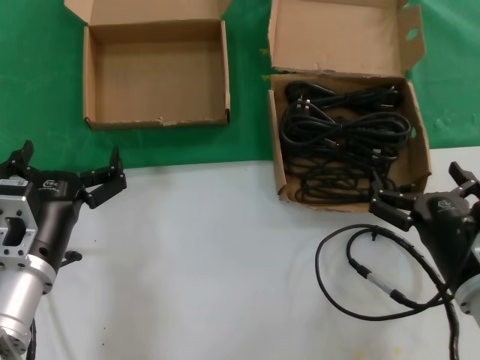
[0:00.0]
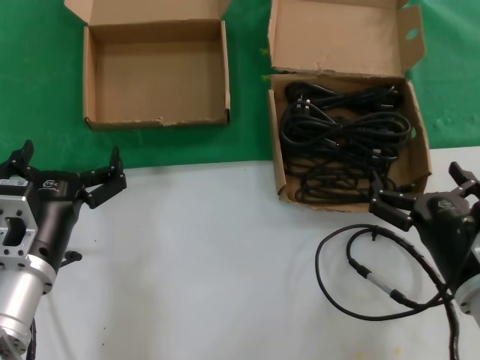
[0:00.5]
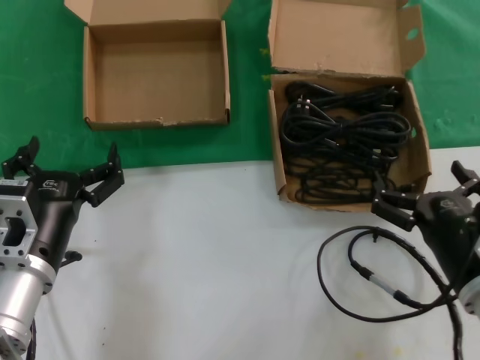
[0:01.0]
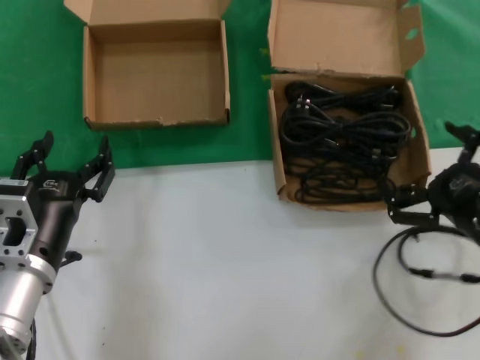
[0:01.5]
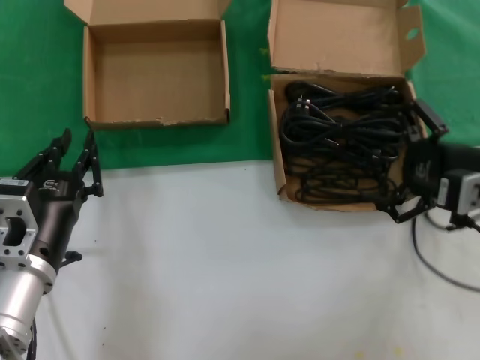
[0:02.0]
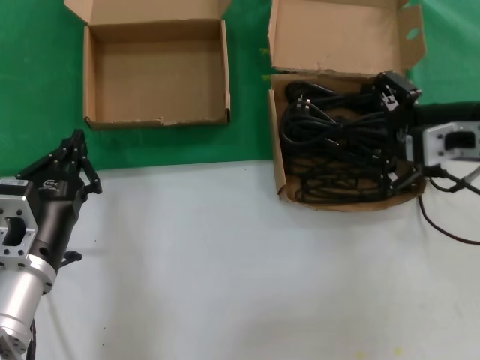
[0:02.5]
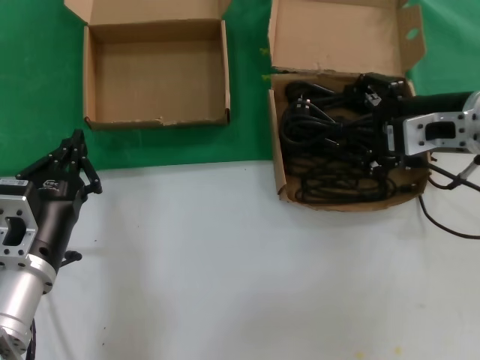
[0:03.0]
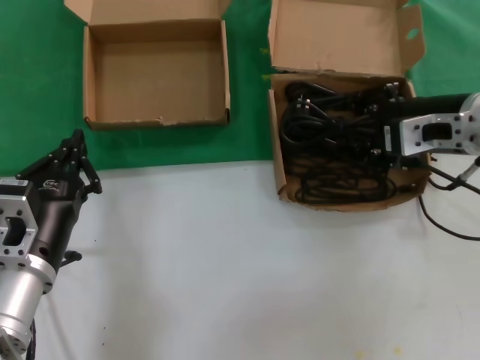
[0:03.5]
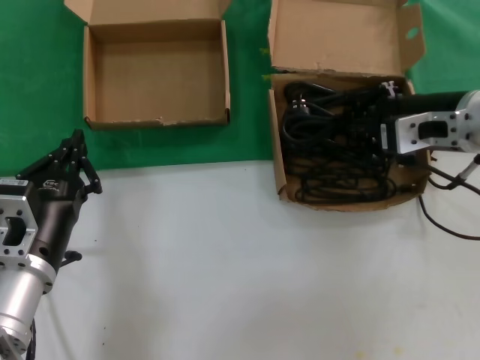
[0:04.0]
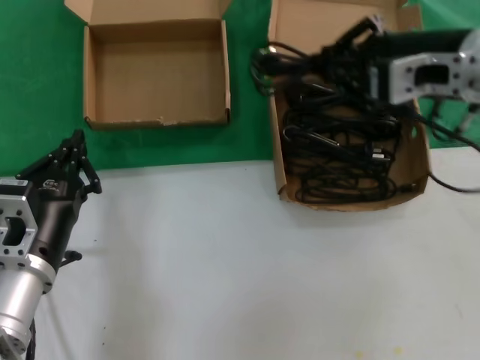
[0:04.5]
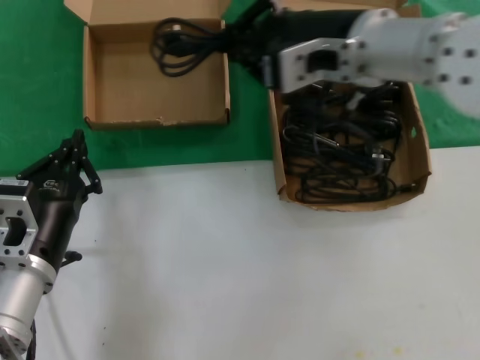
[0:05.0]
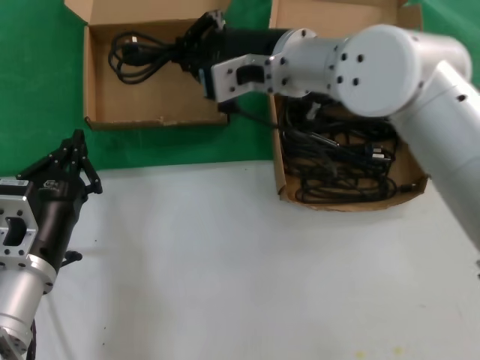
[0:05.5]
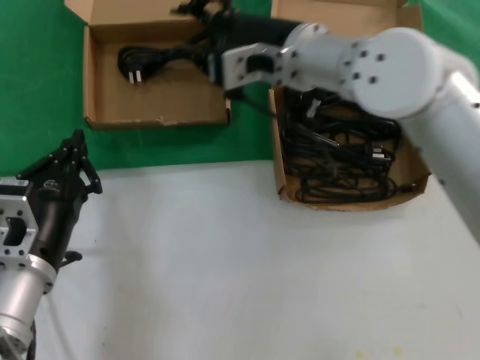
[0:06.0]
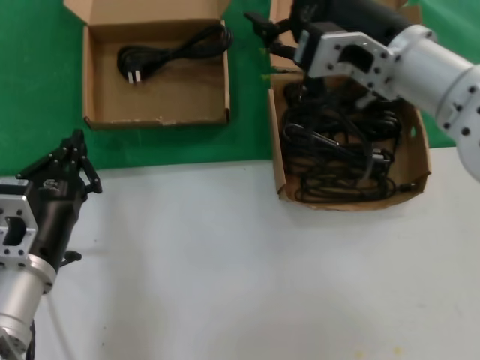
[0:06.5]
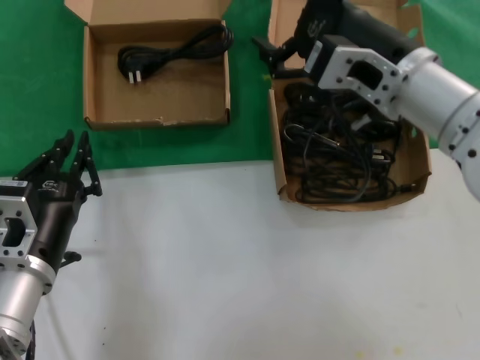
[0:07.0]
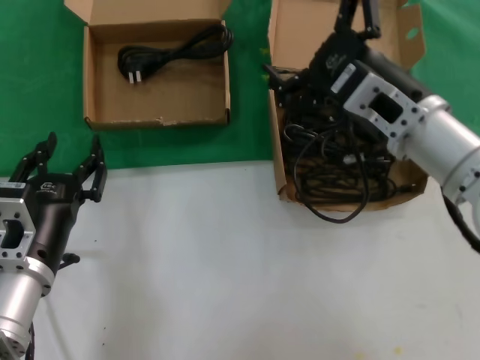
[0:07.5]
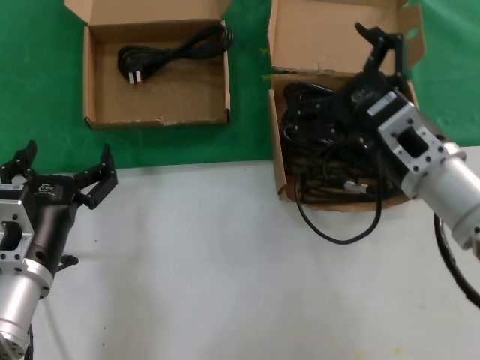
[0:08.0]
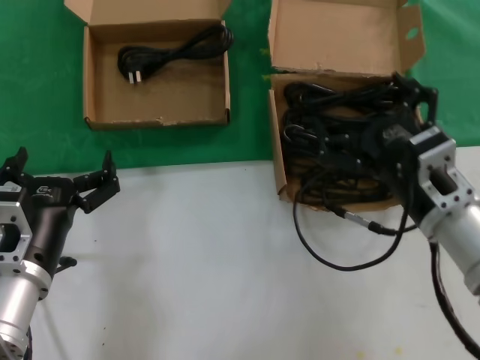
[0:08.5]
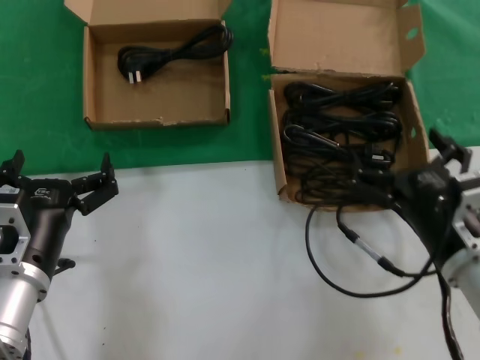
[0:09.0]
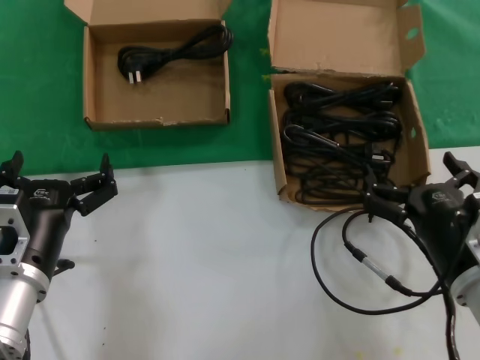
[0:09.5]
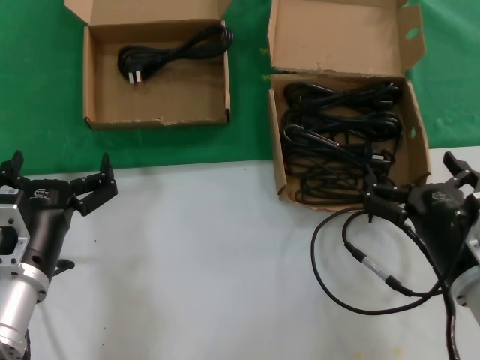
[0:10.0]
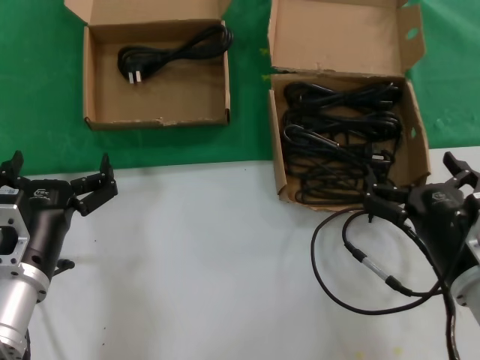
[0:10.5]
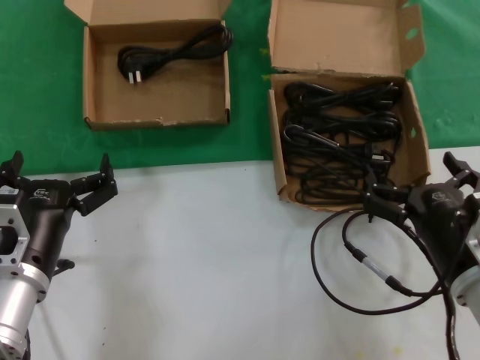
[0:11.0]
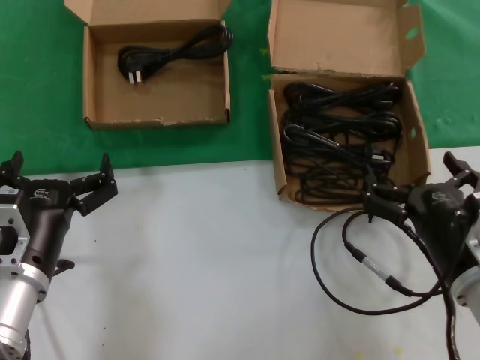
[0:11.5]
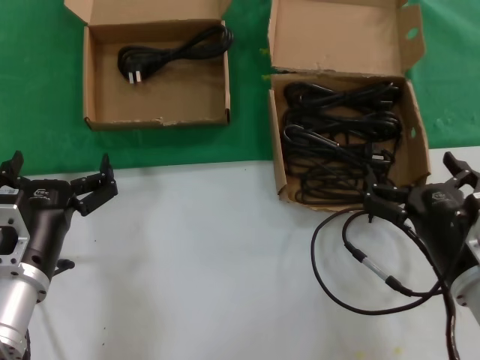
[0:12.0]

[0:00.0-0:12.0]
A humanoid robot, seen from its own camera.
Task of the whole recording: take the parts from the box containing them and put them into an empty box.
Step, 0:00.0 to 0:03.5: Grasp the data cable.
Step, 0:04.0 to 0:05.5: Place the data cable in the another box.
0:00.0 to 0:02.0: The right hand moves upward, forward and to the right, roughly 15 cm.
0:02.0 to 0:04.0: The right hand moves forward, to the left and upward, about 10 cm.
0:04.0 to 0:06.0: The right hand moves to the left, approximately 20 cm.
0:06.0 to 0:08.0: The right hand heads to the right, backward and downward, covering about 20 cm.
0:08.0 to 0:10.0: The right hand travels downward and backward by about 15 cm.
0:10.0 to 0:12.0: Neither hand changes place.

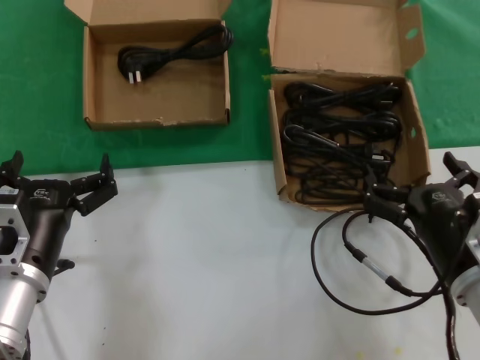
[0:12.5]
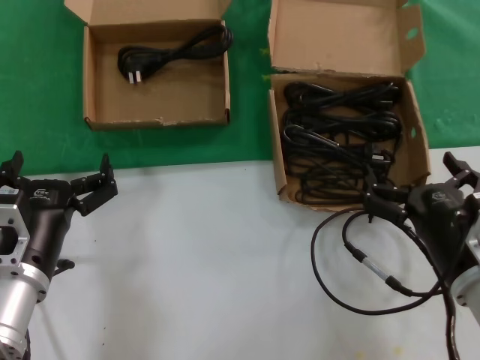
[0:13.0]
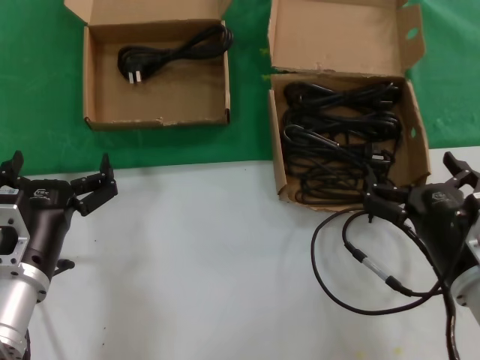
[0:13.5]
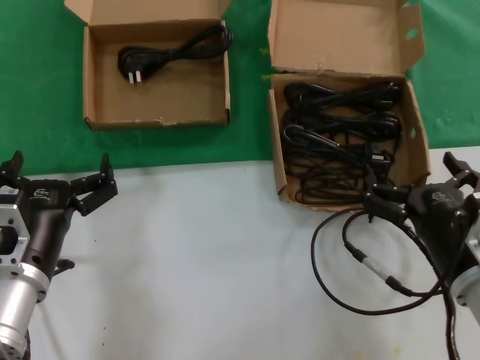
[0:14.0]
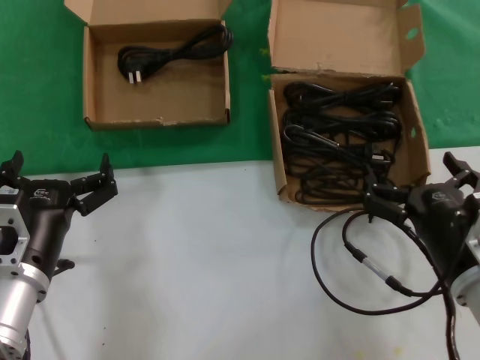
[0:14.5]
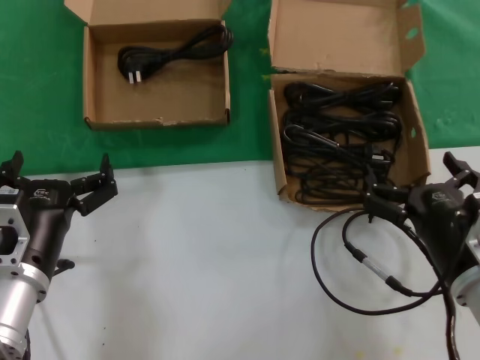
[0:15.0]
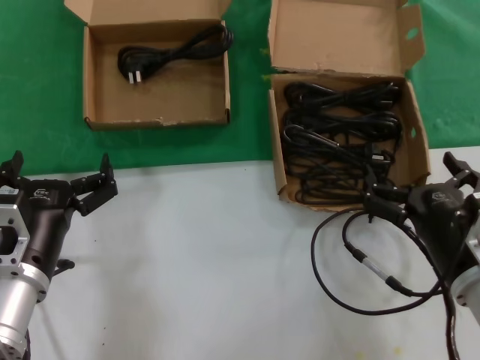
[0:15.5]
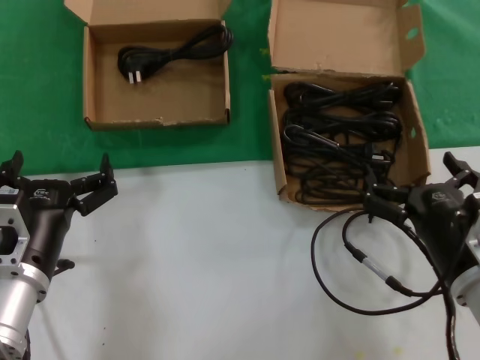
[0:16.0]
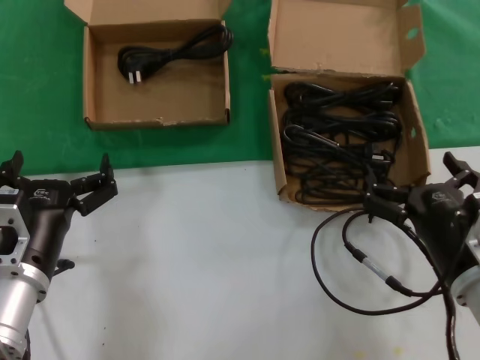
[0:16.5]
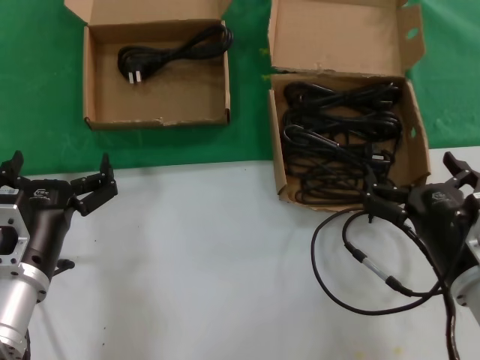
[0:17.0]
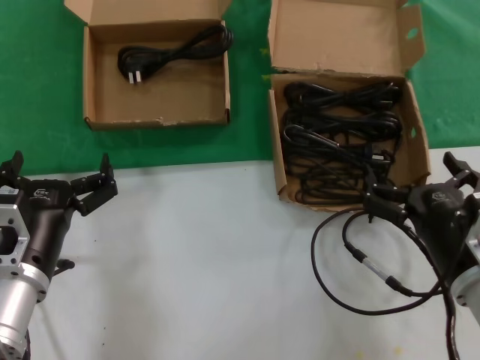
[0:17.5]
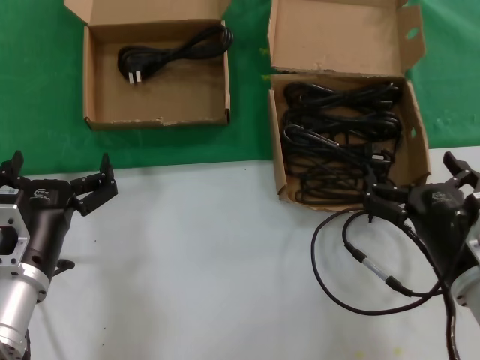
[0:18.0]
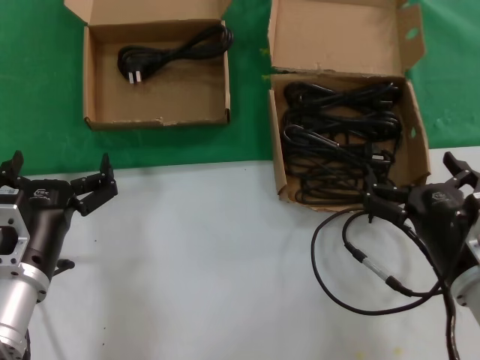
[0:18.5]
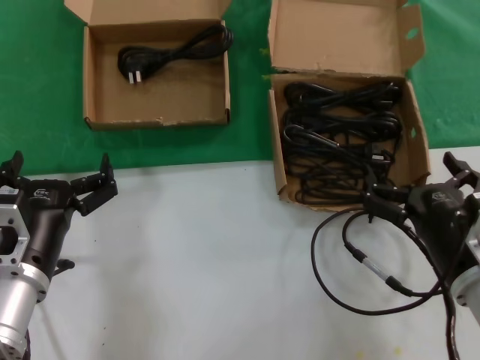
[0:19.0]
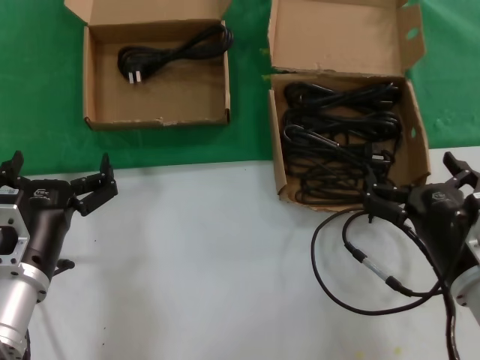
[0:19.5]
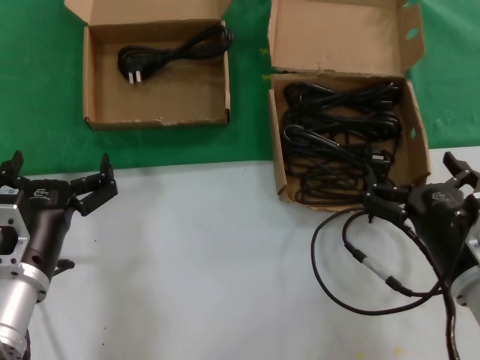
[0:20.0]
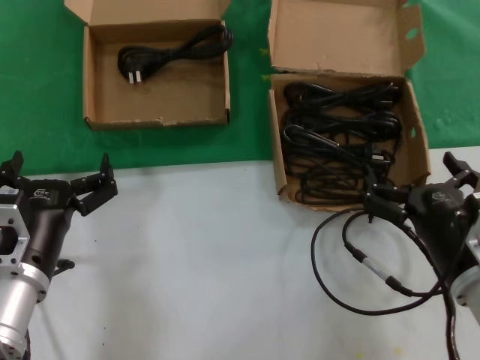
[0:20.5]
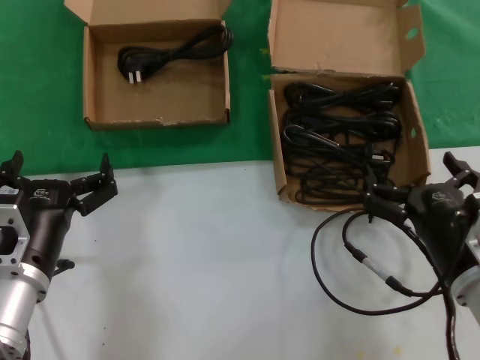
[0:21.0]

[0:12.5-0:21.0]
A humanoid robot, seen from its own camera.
Task of the whole recording: take the parts from the box containing them and put them into an empty box.
0:12.5 to 0:21.0: Neither hand changes place.

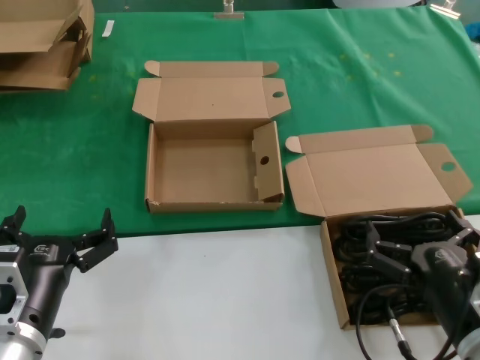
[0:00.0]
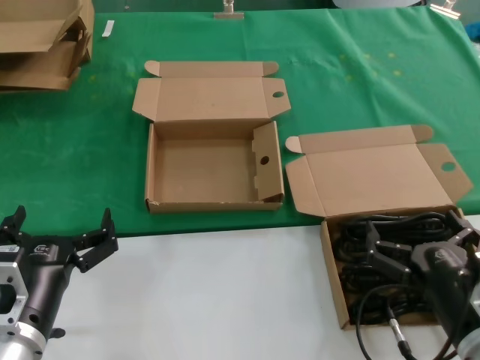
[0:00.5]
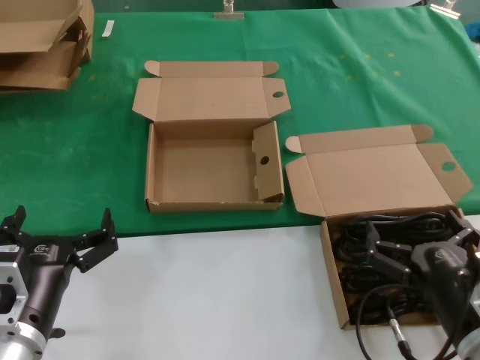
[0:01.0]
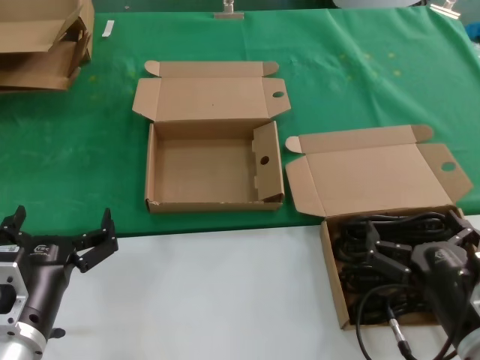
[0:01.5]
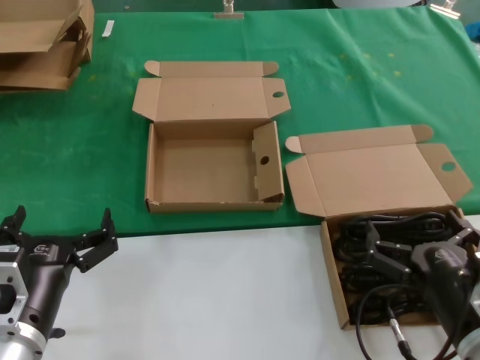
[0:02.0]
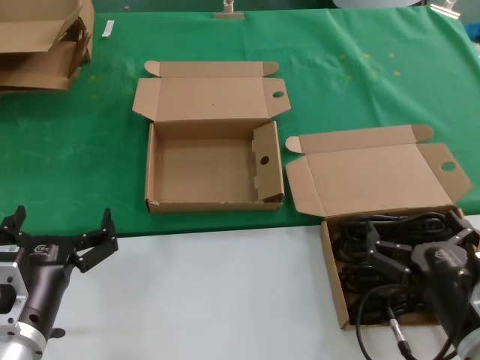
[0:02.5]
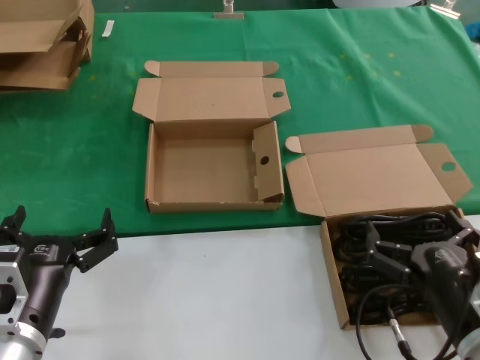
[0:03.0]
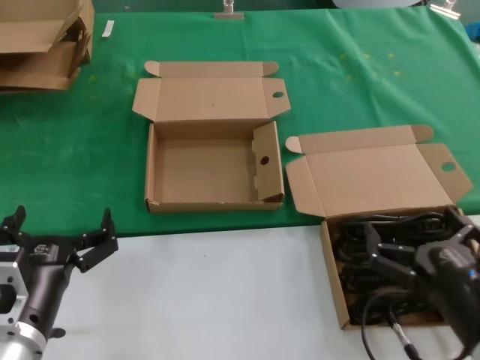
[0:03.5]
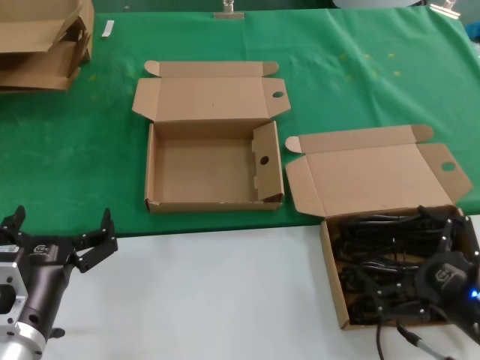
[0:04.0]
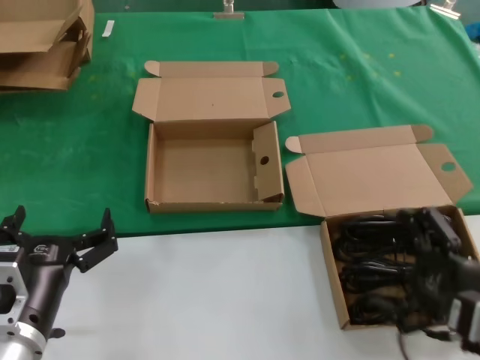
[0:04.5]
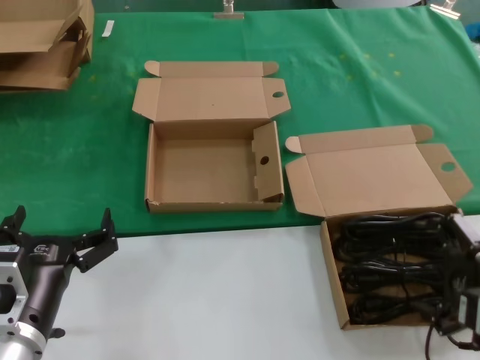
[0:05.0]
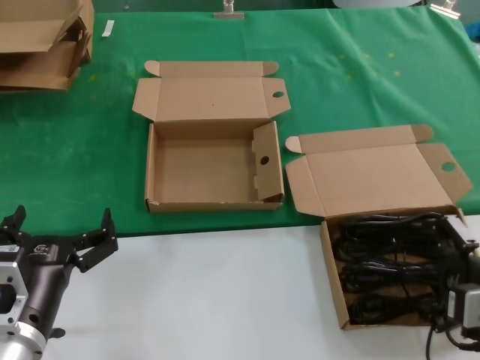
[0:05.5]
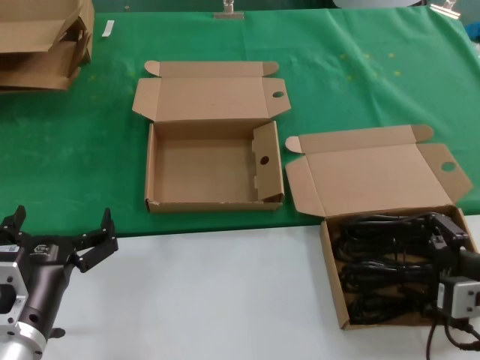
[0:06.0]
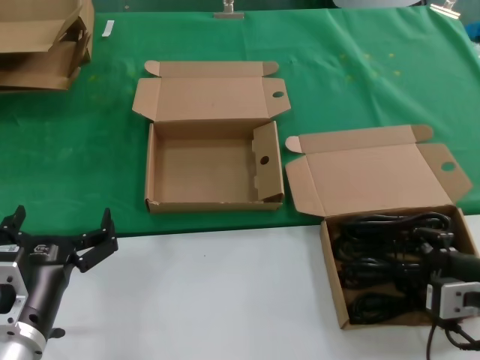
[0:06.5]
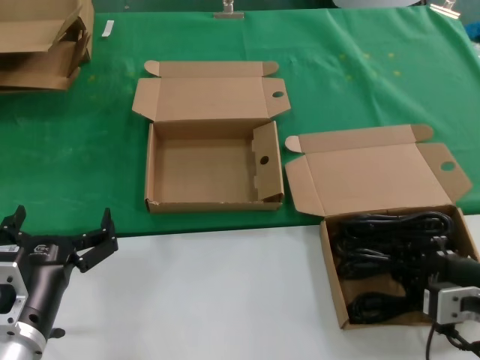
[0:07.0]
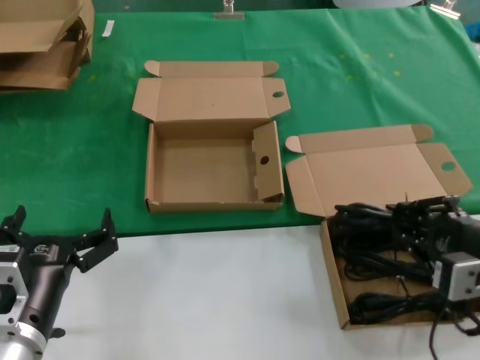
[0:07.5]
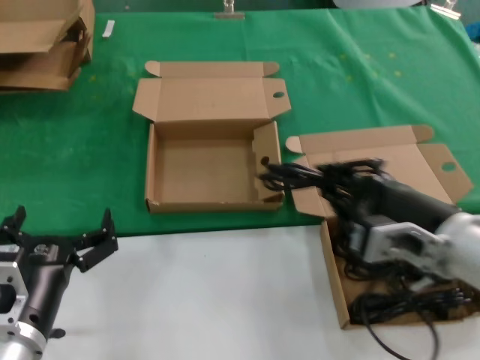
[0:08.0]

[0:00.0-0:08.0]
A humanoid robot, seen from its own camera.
Task of the whole recording: take the parts from the box containing them and put them into an empty box.
Step, 0:00.0 to 0:06.5: Grasp the data cable.
0:00.0 to 0:02.0: Both hands stay put.
0:02.0 to 0:04.0: The right hand moves to the right, roughly 5 cm.
0:04.0 to 0:06.0: The right hand goes about 5 cm forward.
0:06.0 to 0:08.0: The right hand is displaced to the left and upward by about 10 cm.
